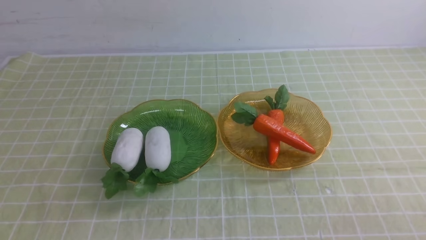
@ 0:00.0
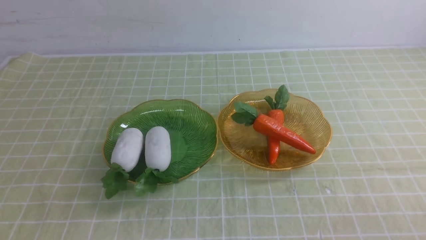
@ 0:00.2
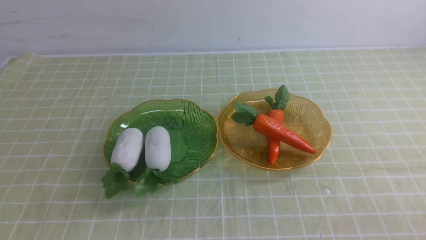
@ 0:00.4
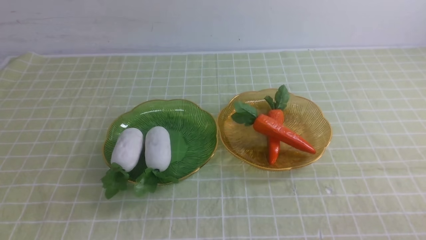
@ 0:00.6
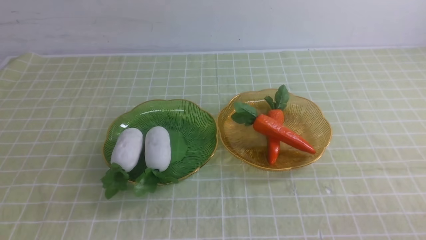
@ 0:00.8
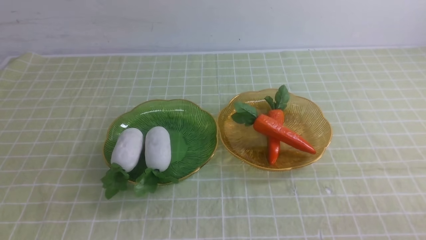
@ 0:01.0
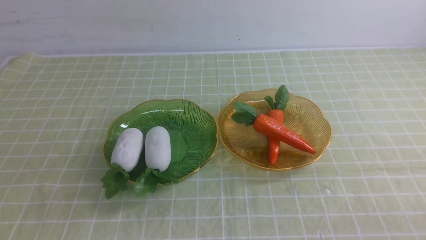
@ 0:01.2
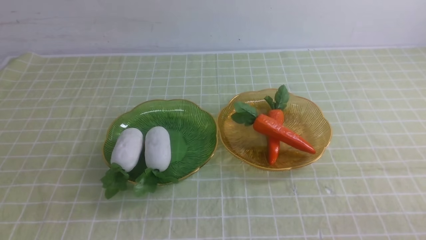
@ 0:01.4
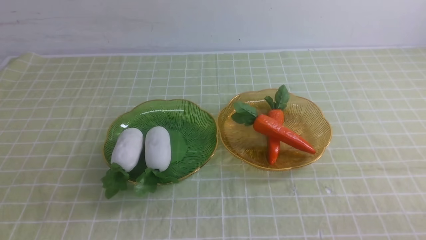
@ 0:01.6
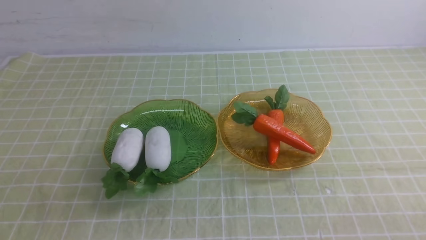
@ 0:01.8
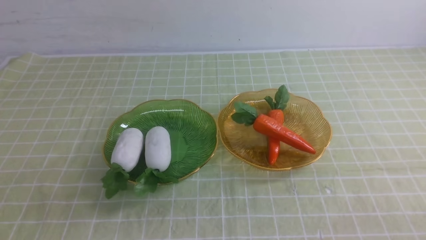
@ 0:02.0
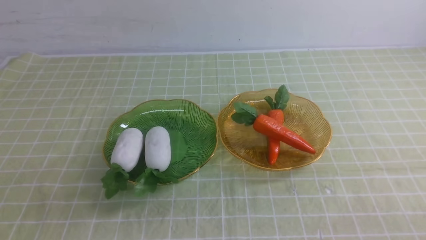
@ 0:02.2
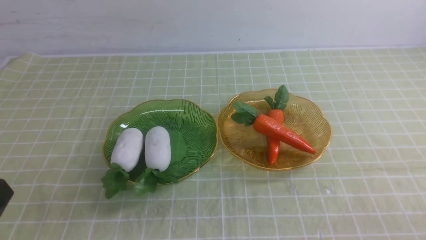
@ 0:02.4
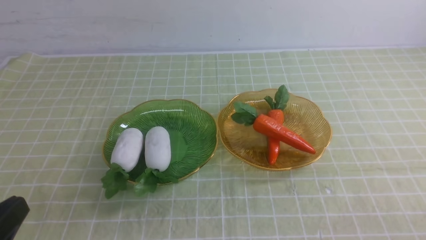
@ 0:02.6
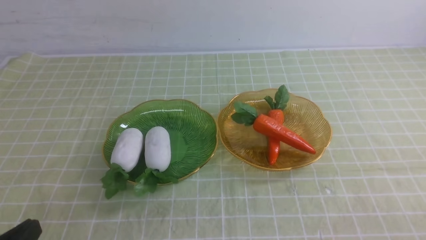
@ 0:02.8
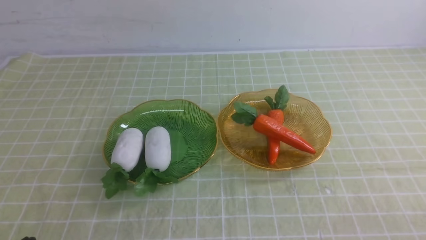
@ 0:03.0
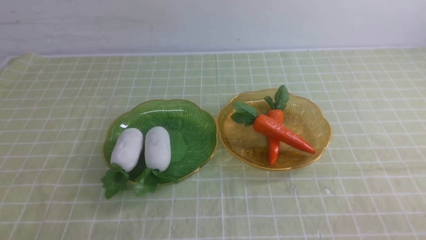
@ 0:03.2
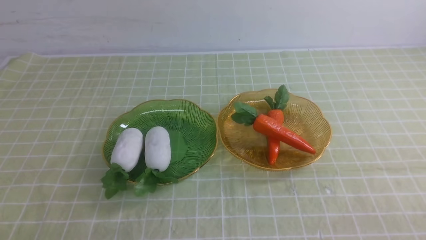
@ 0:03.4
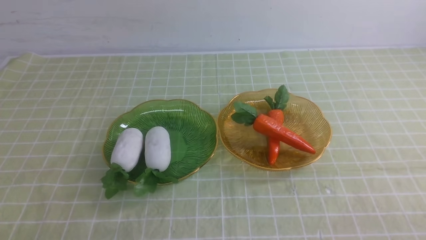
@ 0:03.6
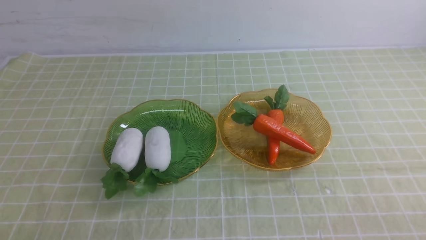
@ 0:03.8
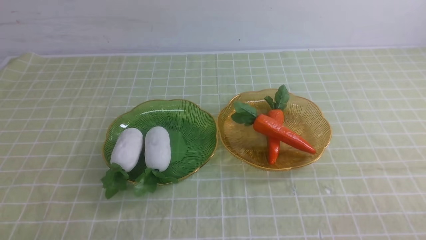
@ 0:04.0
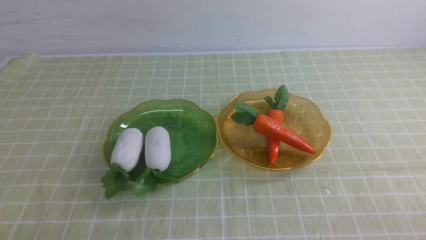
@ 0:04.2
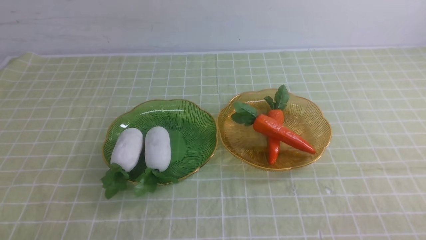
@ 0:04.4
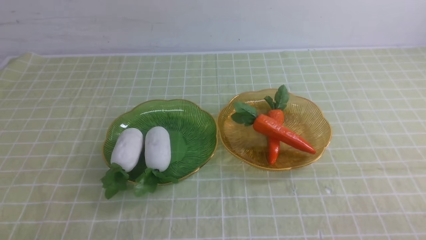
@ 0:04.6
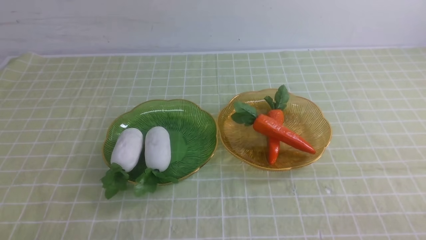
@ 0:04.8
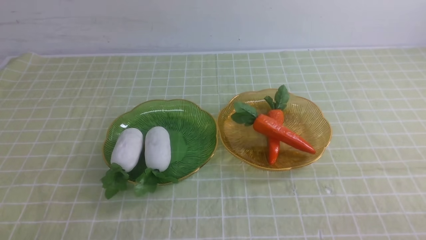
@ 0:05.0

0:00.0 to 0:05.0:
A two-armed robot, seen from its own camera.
0:03.4 to 0:05.0: Neither gripper changes place.

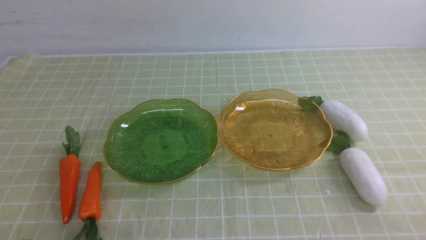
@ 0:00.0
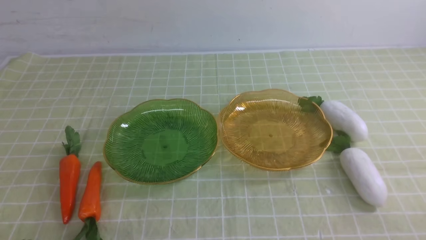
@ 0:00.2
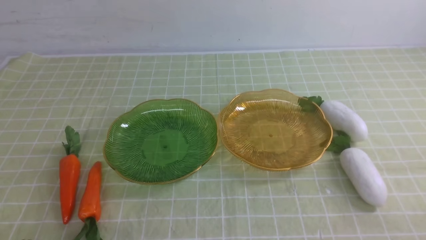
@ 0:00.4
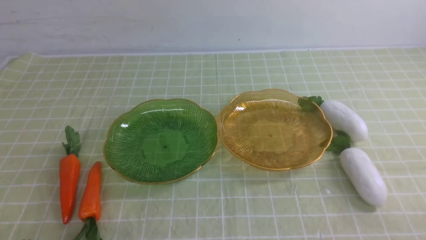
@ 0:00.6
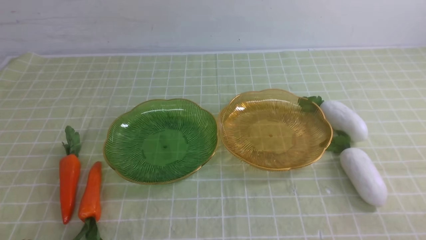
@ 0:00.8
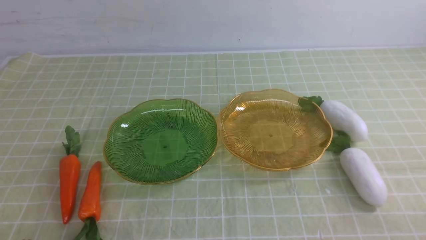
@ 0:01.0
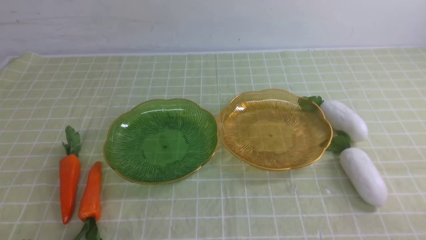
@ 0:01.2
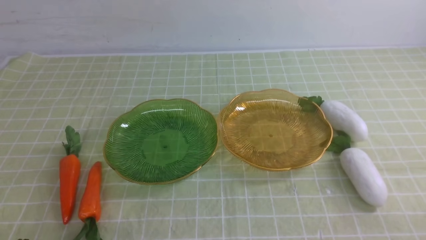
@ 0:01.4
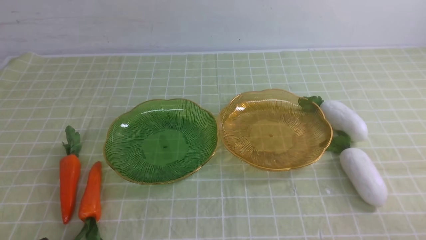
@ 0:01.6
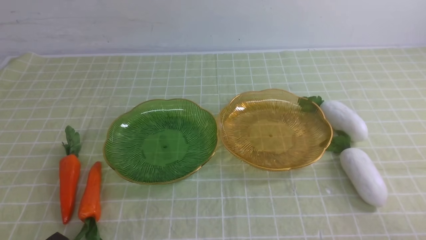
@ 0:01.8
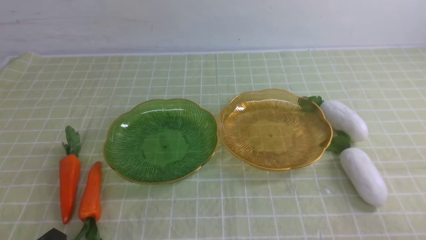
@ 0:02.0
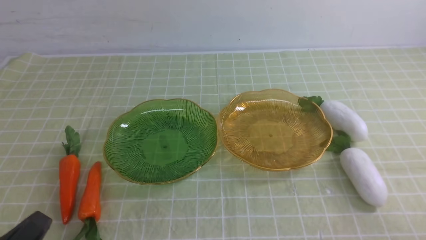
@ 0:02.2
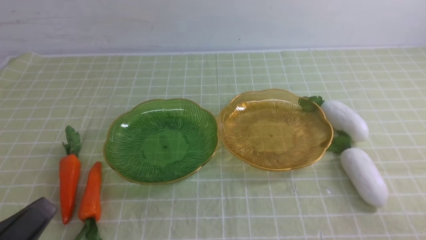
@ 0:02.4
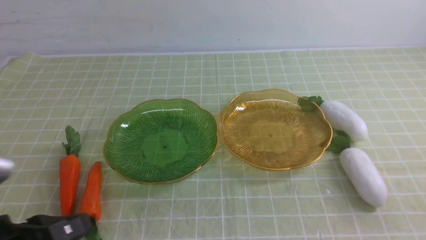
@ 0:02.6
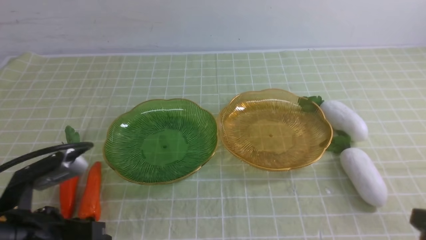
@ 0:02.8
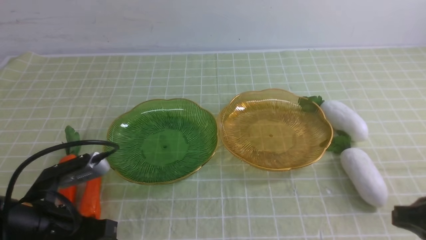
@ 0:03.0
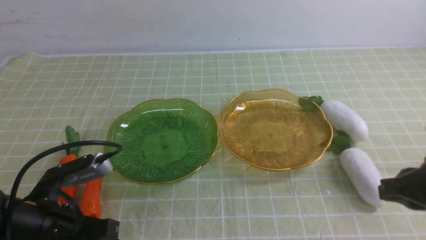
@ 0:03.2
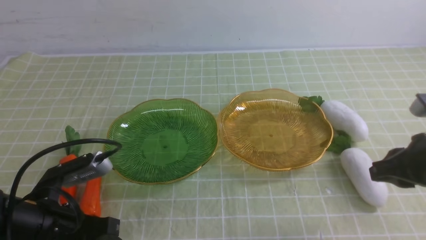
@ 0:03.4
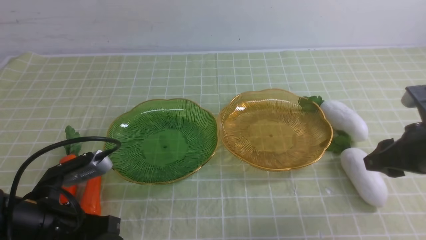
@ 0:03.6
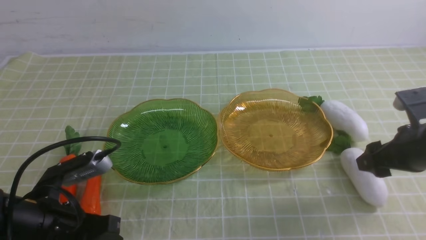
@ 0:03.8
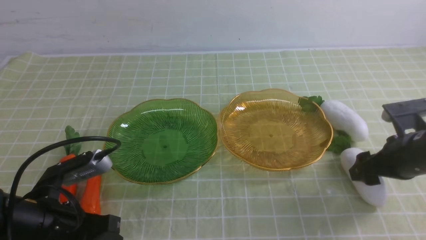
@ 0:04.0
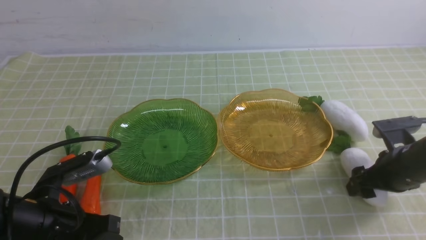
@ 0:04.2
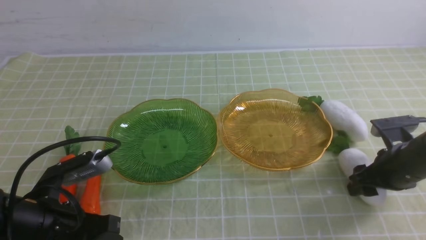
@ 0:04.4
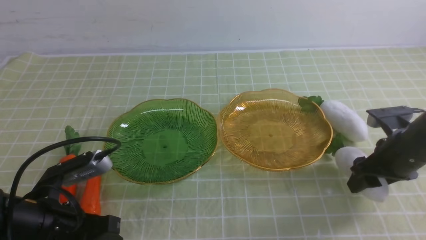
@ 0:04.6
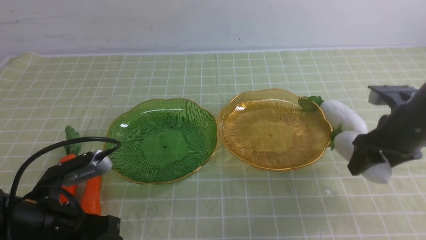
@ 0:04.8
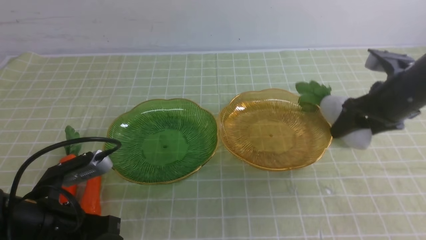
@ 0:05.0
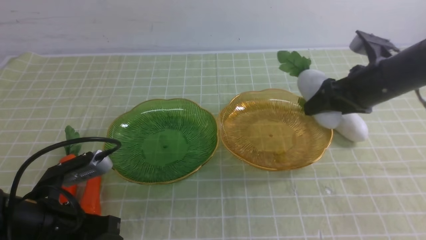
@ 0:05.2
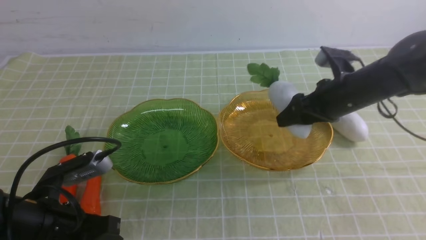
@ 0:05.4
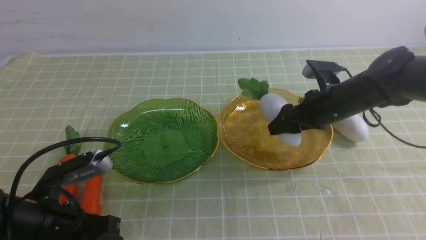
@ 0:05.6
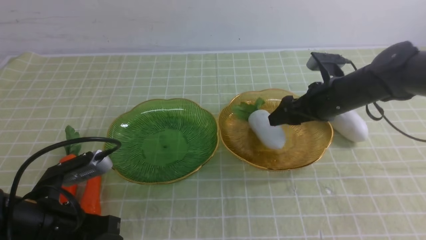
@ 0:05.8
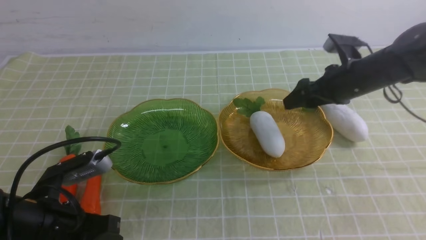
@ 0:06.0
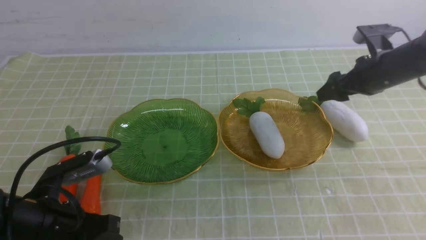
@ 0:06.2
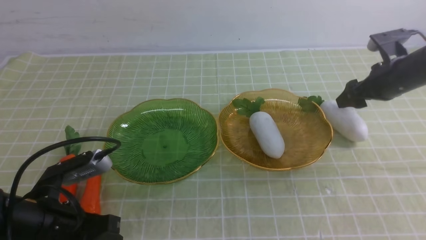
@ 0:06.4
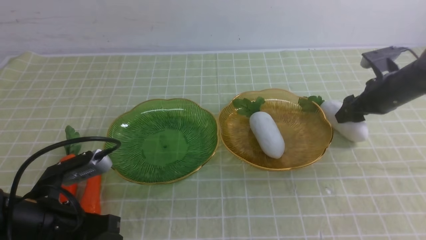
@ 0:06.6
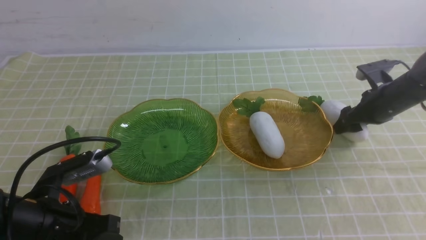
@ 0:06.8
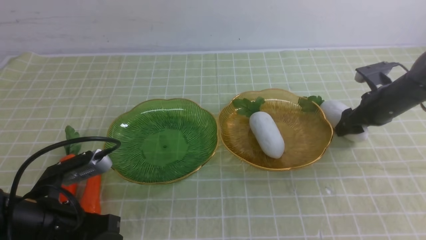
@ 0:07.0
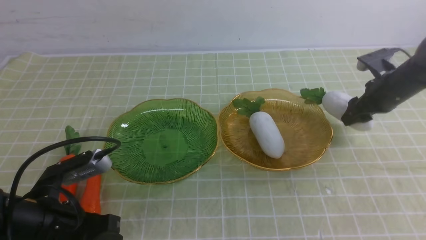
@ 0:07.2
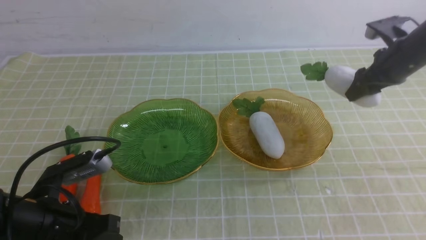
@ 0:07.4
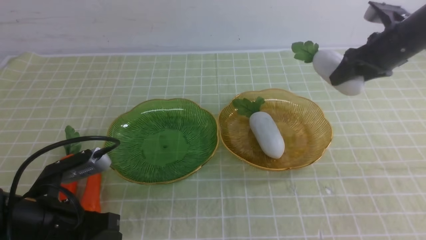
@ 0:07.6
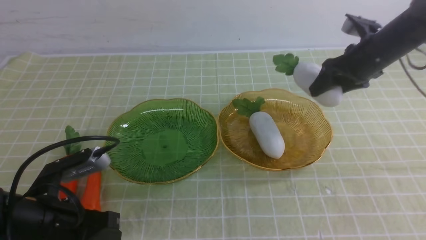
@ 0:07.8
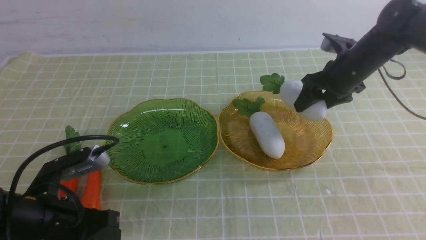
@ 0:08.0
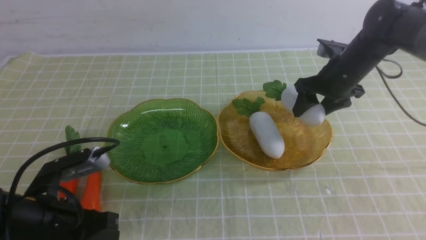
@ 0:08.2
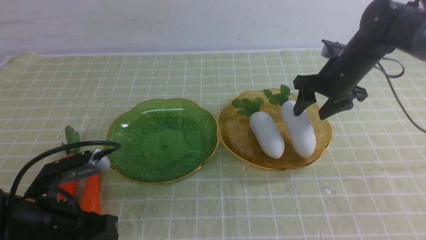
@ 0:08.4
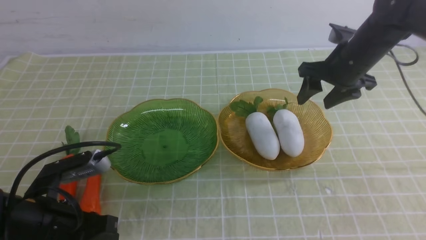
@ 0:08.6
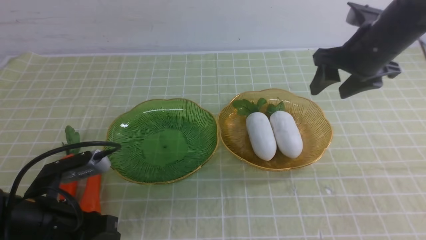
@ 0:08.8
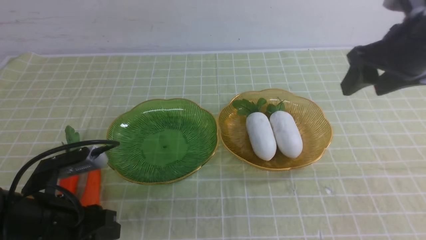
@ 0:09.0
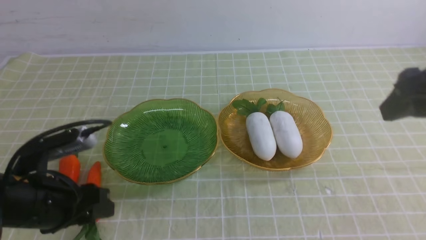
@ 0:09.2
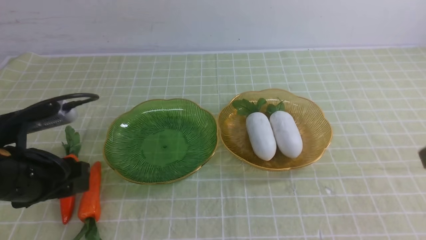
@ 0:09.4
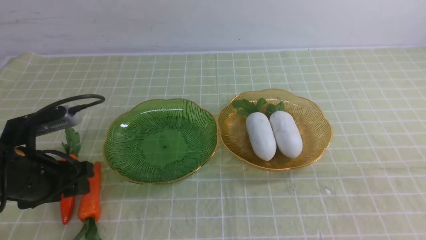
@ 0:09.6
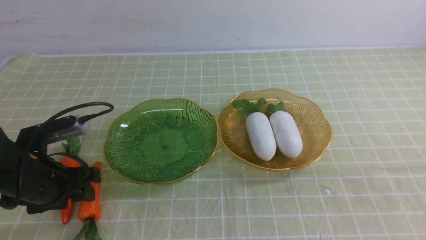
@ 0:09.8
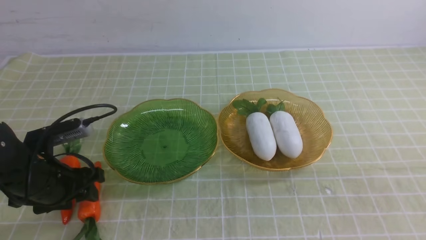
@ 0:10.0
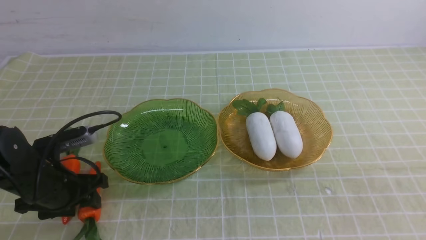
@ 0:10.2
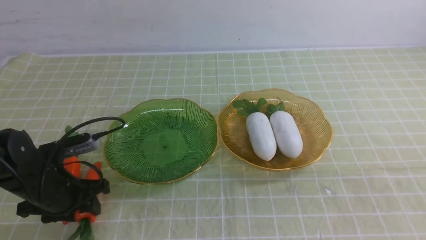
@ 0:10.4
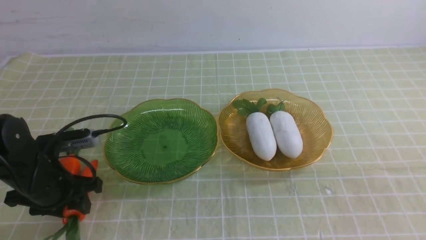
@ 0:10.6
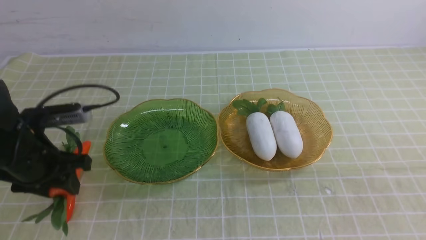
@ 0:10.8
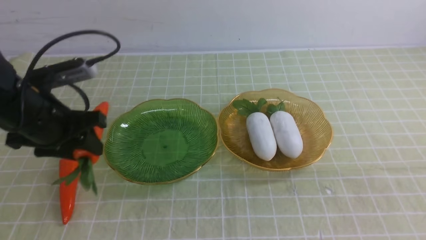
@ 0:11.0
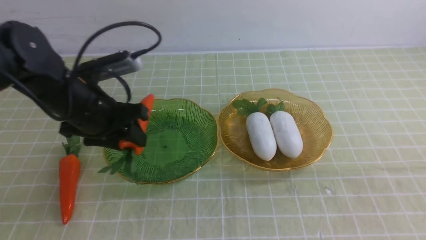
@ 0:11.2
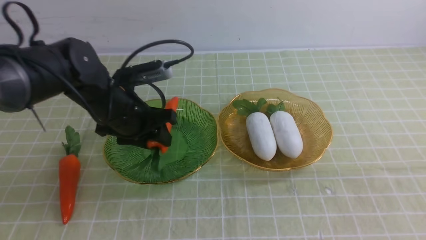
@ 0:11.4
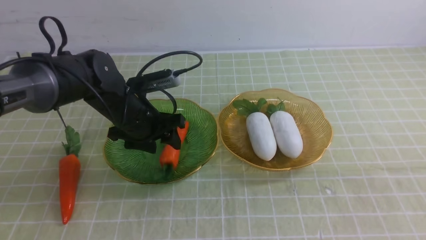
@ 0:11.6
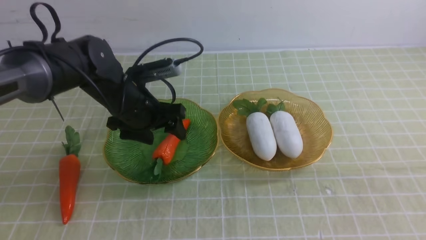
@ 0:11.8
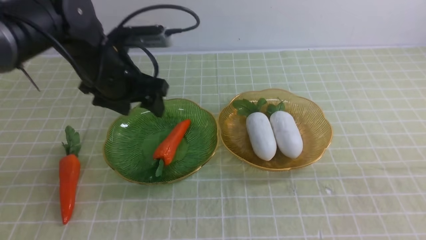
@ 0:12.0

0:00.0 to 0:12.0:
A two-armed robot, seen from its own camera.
Step, 0:00.0 to 0:06.8: use the right arm to grab a radish and put it into the right plate.
Step, 0:07.0 to 0:10.2: use the right arm to grab a radish and put it into the right plate.
0:01.6 to 0:03.0: The right gripper travels forward and upward by approximately 10 cm, while the left gripper travels forward by roughly 10 cm.
0:03.0 to 0:04.4: The right gripper heads forward and downward, covering approximately 15 cm, and opens up.
0:04.4 to 0:06.0: The right gripper is displaced forward and upward by some 15 cm.
0:06.0 to 0:07.6: The right gripper changes place by about 5 cm.
0:07.6 to 0:09.0: The right gripper goes about 20 cm backward and upward, while the left gripper opens up.
0:09.0 to 0:10.4: The left gripper travels forward by some 10 cm, while the right gripper moves backward, approximately 20 cm.
0:10.4 to 0:12.0: The left gripper heads upward, forward and to the right, covering roughly 20 cm.
